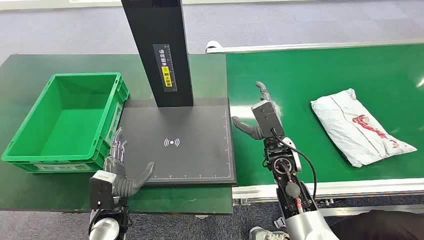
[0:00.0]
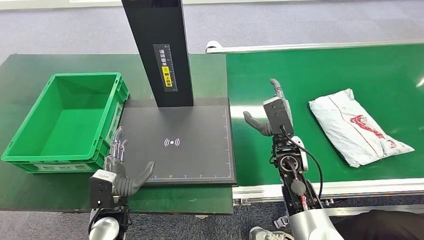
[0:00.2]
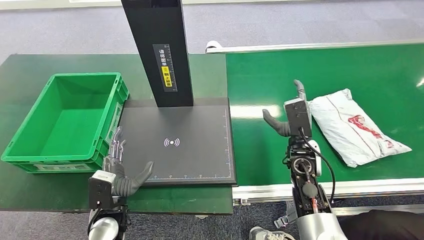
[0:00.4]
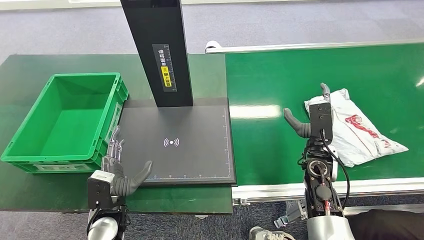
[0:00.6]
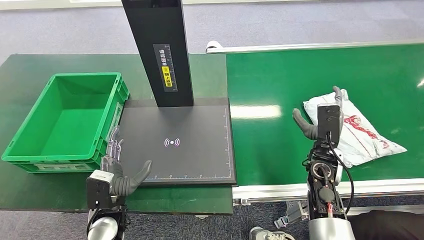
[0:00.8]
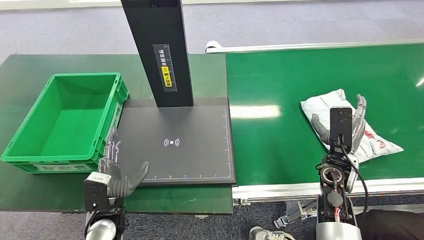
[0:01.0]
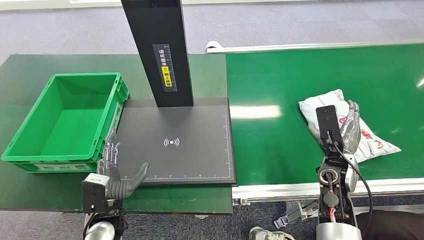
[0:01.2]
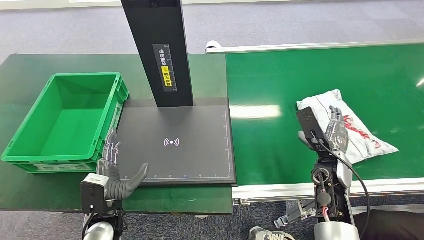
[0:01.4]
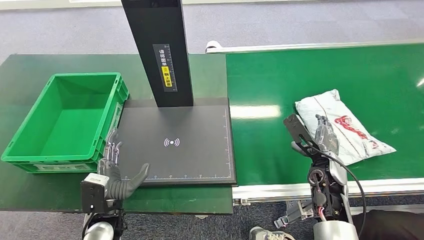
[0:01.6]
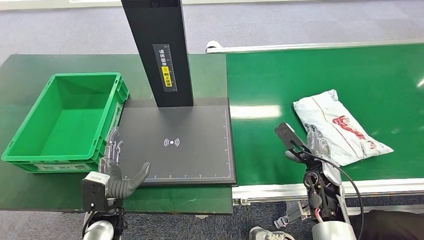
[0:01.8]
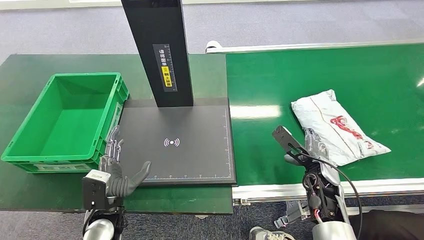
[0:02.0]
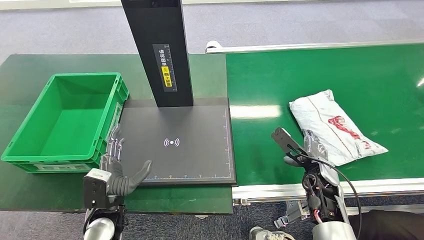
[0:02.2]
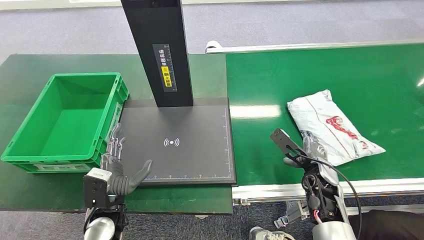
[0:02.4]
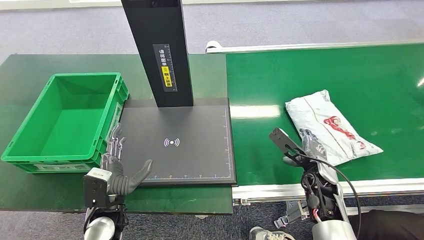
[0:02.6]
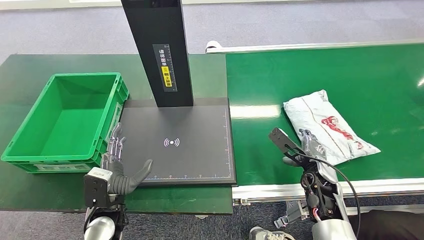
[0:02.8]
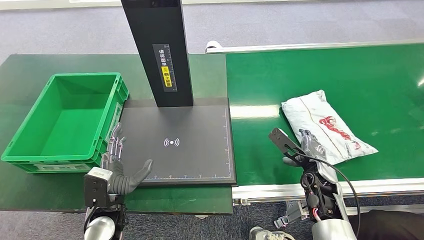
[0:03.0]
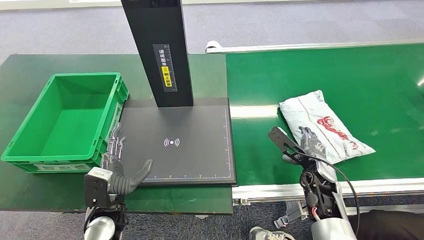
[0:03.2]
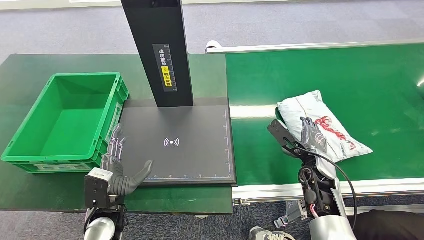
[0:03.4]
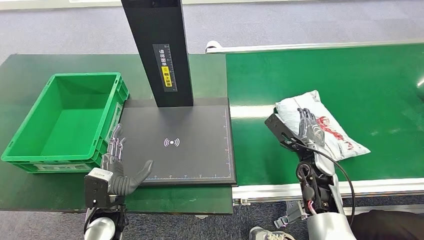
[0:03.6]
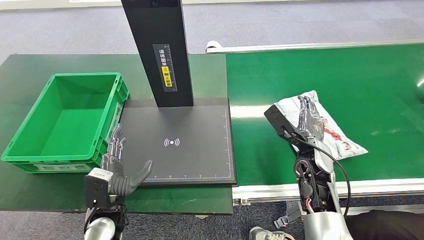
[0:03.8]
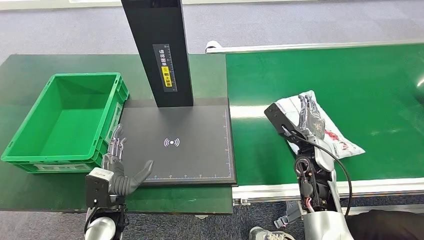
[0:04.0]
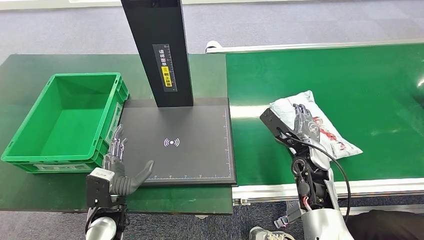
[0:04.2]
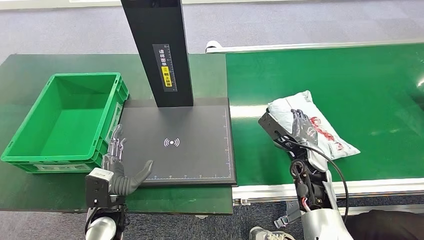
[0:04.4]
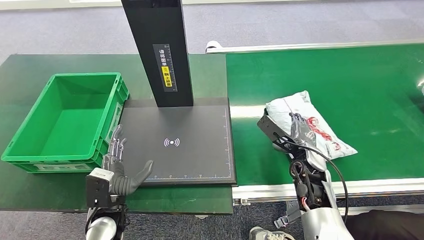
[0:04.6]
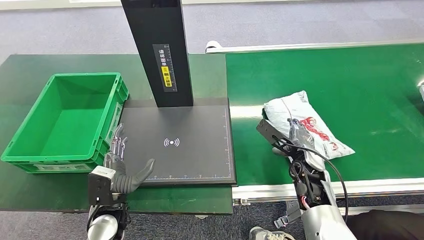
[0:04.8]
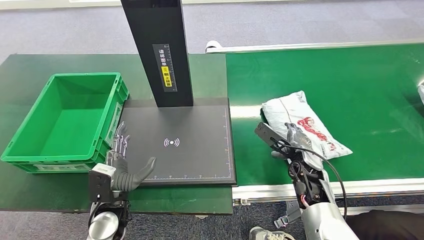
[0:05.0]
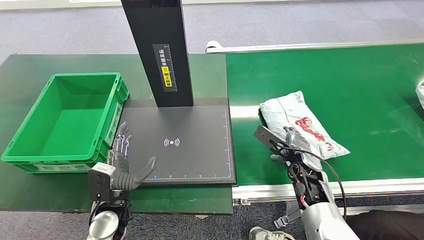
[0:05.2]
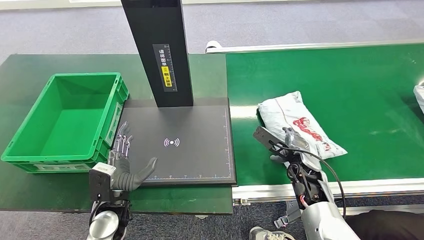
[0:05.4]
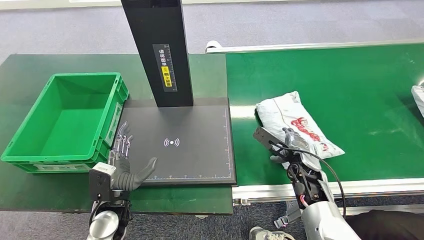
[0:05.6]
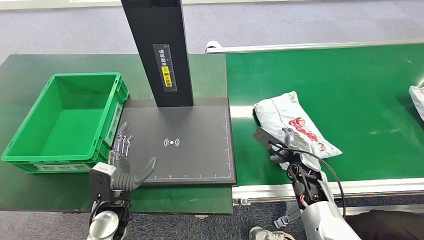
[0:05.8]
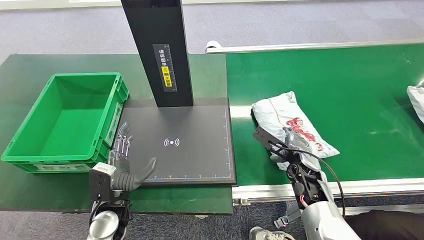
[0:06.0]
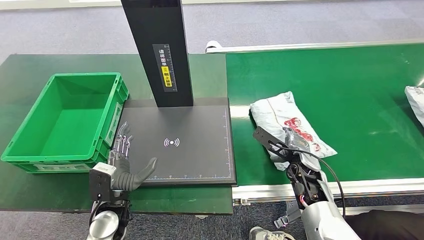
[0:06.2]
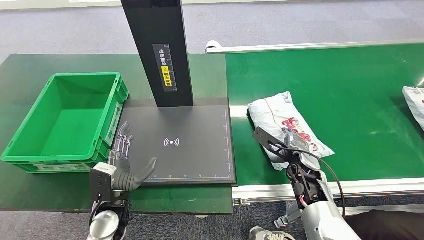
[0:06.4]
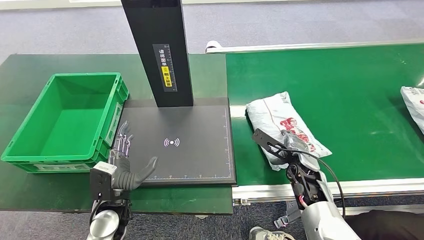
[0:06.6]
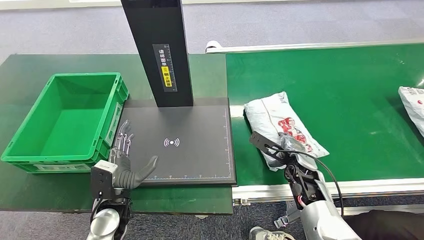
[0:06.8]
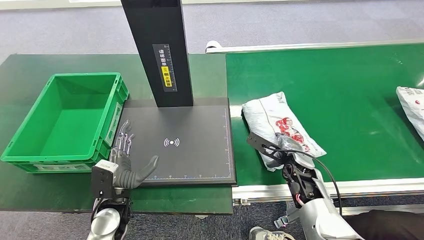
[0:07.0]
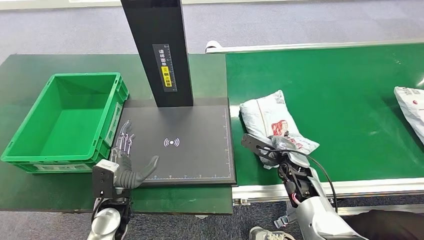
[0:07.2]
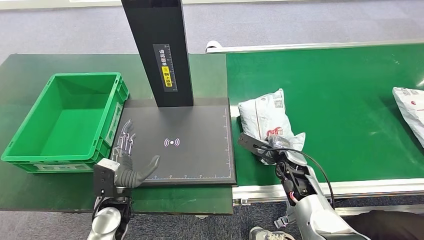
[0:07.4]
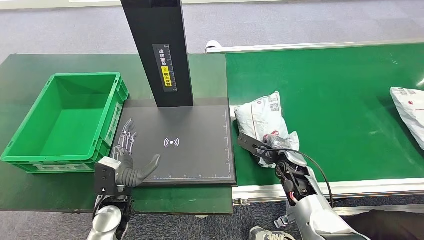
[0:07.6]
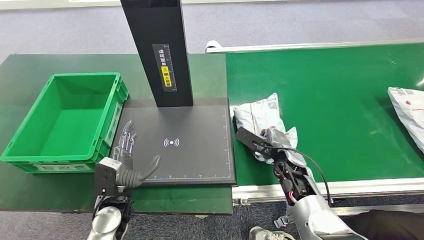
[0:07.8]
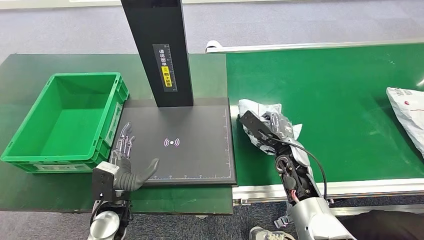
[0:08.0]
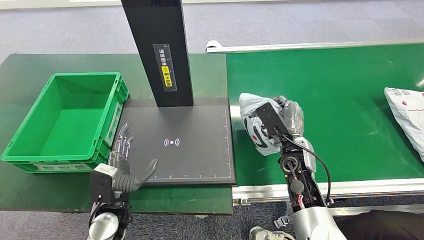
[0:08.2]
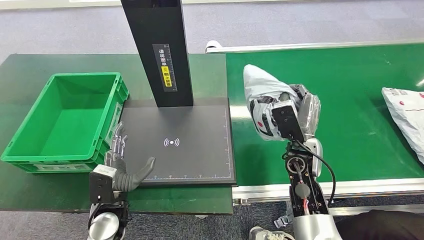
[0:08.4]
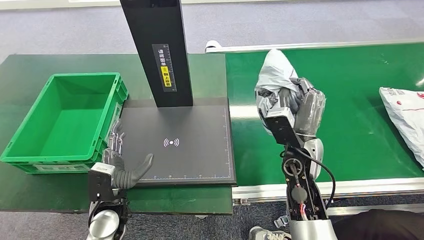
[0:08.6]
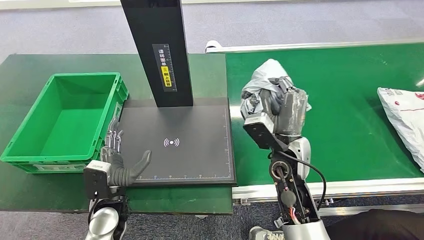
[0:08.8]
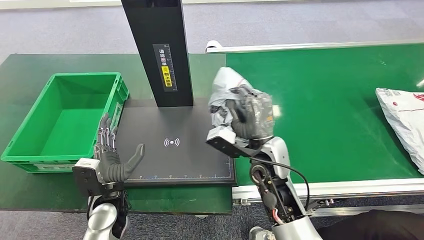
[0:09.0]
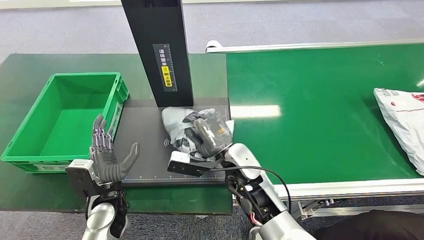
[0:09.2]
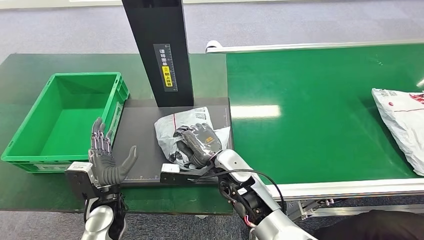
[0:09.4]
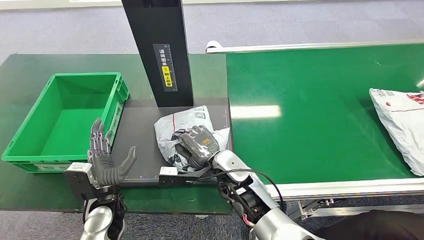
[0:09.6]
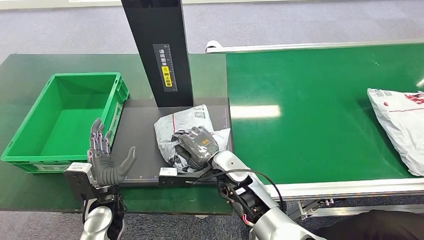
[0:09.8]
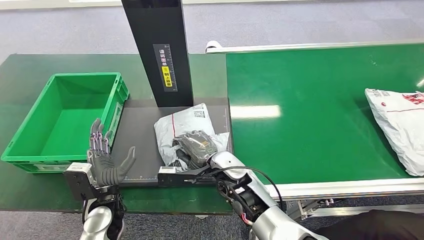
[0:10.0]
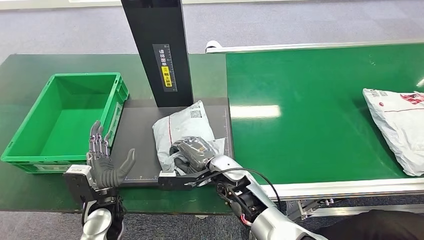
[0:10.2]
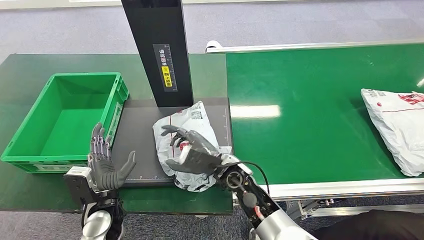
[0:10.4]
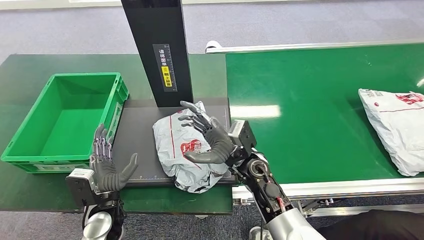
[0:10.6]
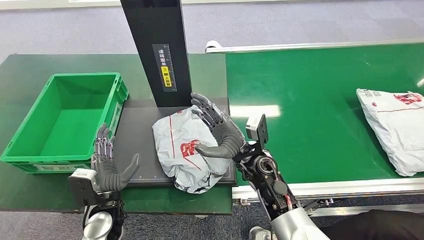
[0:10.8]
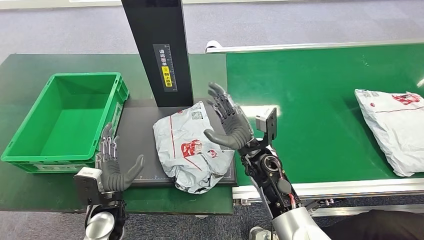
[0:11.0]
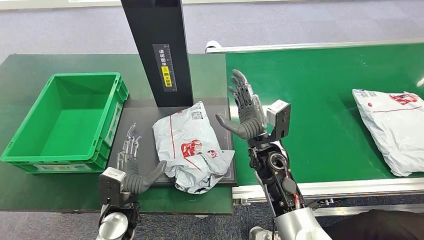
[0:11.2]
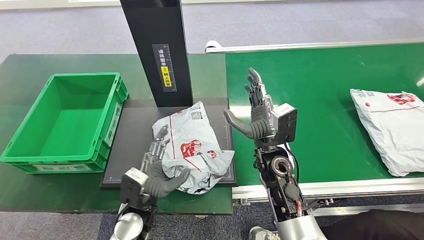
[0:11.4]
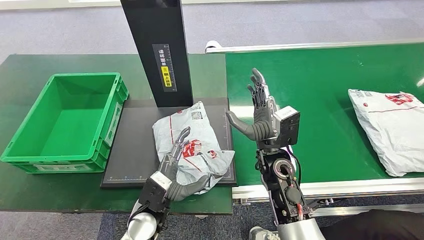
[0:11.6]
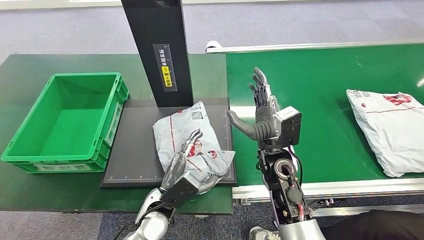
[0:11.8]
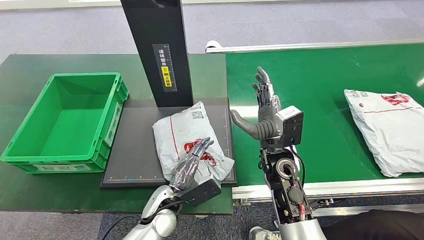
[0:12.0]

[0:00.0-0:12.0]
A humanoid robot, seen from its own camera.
Step, 0:00.0 to 0:08.8: Pick up the package from the conveyor belt.
Step, 0:09.2 to 0:11.4: Place the package onto the inbound machine.
0:01.6 to 0:03.0: The hands make only small movements.
0:03.0 to 0:04.4: The right hand ends up roughly 5 cm from where it was.
0:04.4 to 0:06.0: There are only small adjustments of the hands.
0:06.0 to 0:07.6: The hands move only a little.
0:07.6 to 0:09.0: The right hand is displaced upward and to the left by about 15 cm.
0:09.0 to 0:10.4: The right hand goes approximately 10 cm downward and to the left.
0:10.4 to 0:12.0: The right hand travels to the right and upward by approximately 10 cm, while the left hand goes approximately 15 cm to the right.

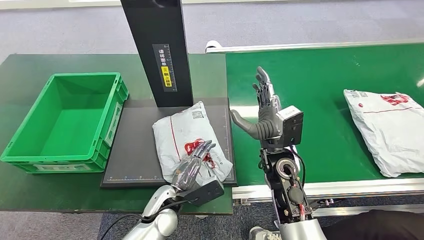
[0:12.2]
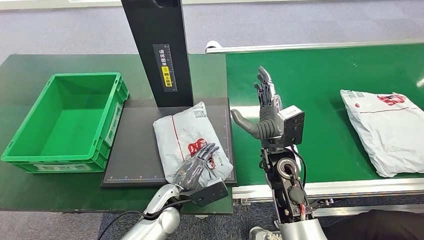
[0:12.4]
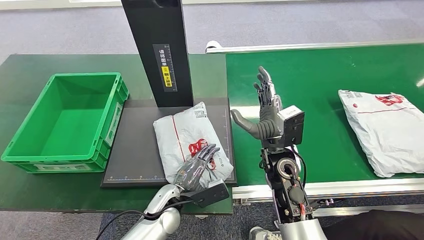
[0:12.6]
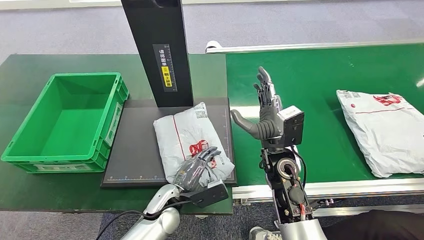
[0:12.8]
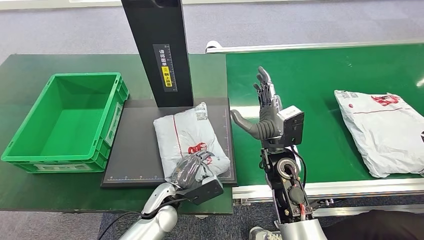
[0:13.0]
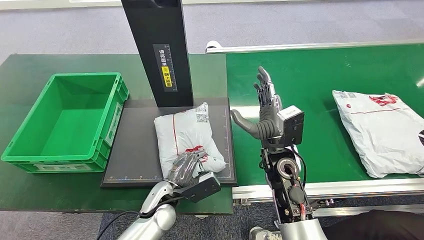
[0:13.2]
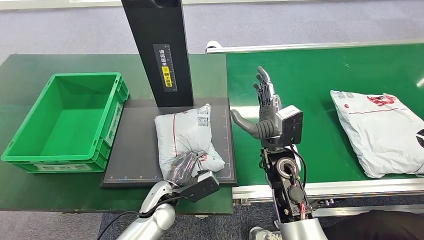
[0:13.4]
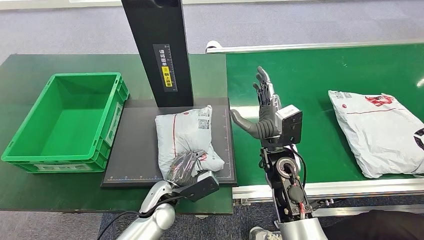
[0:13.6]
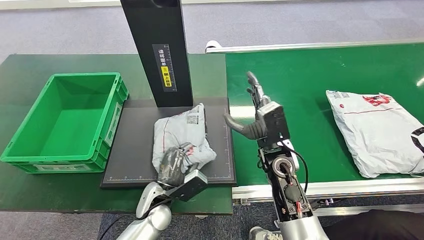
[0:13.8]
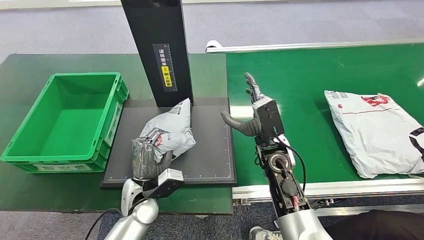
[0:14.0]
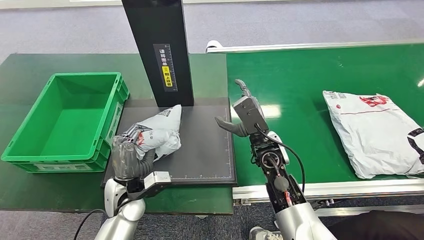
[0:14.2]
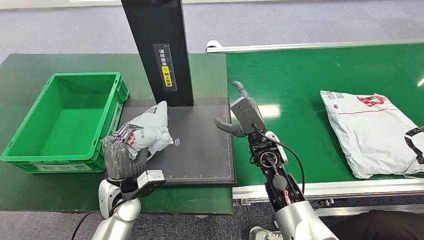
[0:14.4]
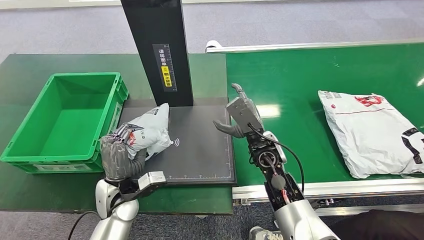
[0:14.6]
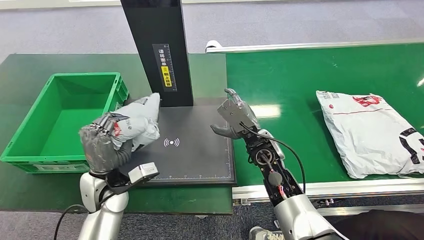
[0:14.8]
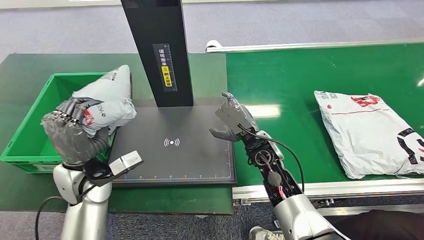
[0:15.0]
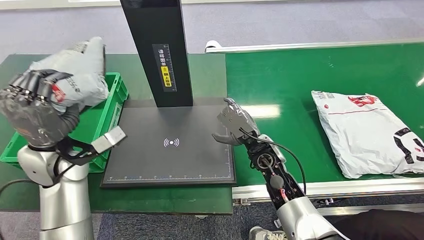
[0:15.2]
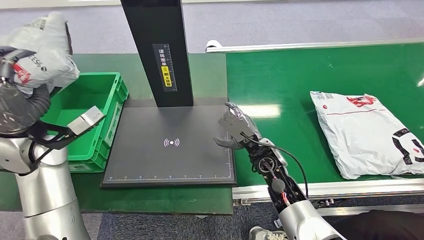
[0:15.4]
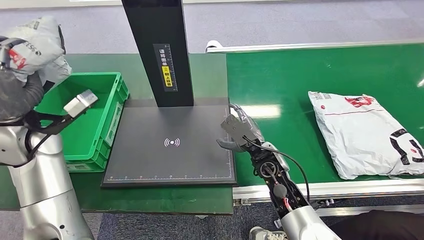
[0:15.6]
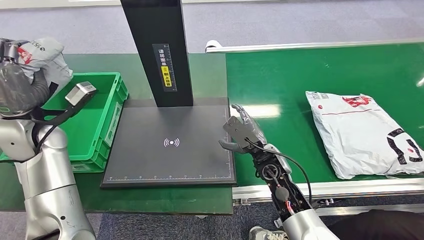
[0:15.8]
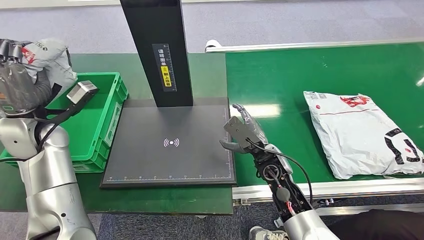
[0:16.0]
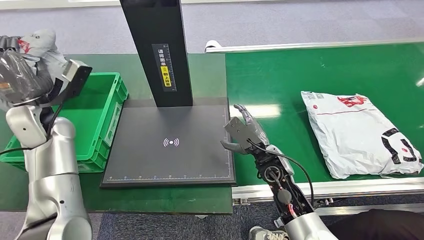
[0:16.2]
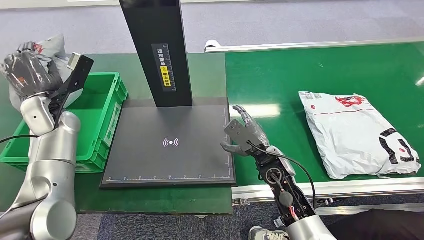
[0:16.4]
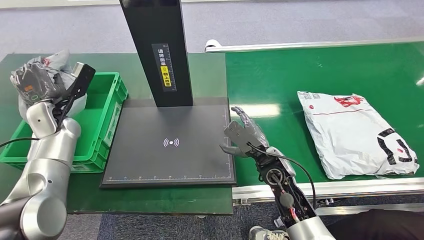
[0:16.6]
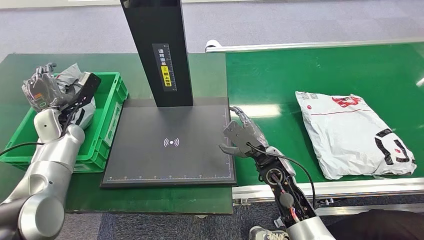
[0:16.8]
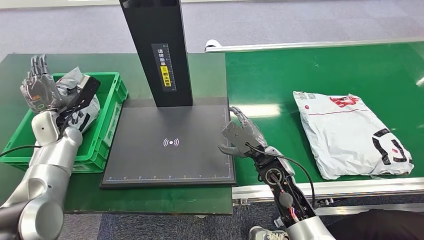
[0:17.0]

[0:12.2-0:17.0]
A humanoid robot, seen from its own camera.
Step, 0:12.2 to 0:14.8: Pick up the package from the inbound machine.
Step, 0:15.2 to 0:17.0: Place the package into the parcel locker.
0:12.2 to 0:13.8: The hands stay close to where they were, moving slightly.
